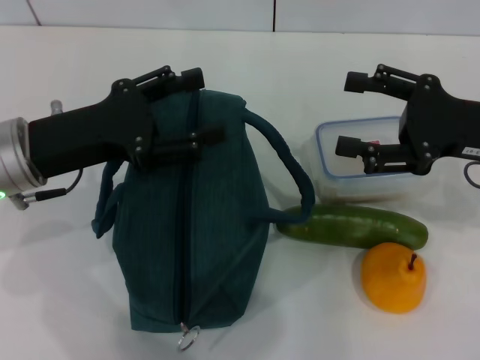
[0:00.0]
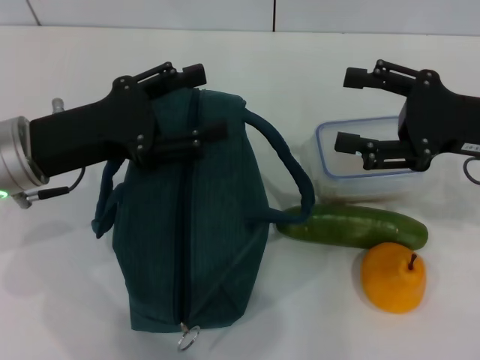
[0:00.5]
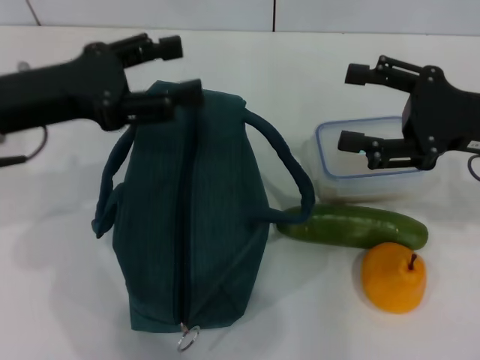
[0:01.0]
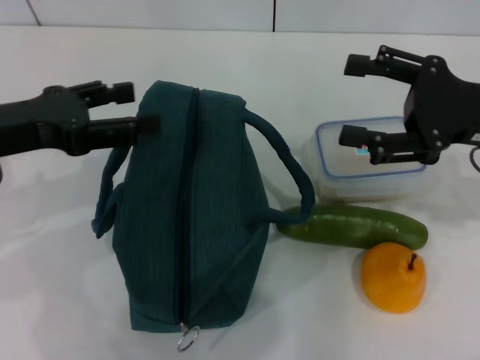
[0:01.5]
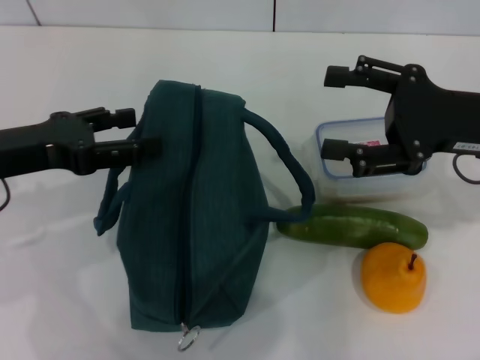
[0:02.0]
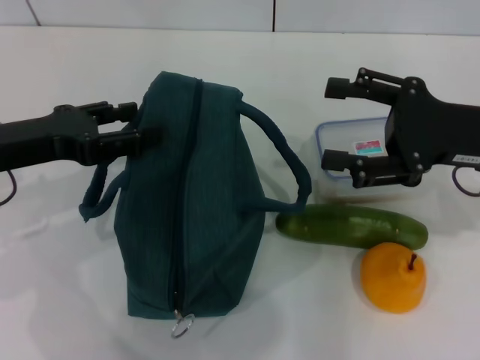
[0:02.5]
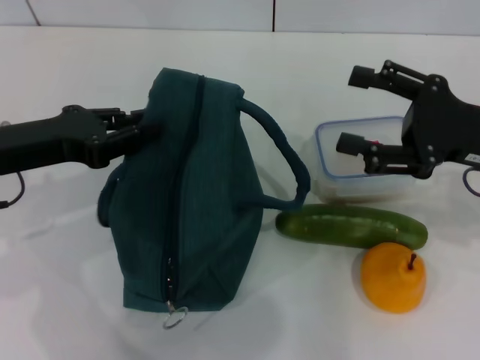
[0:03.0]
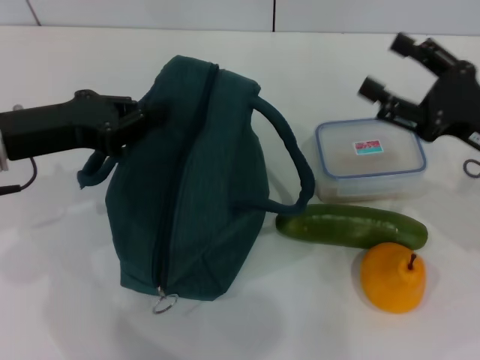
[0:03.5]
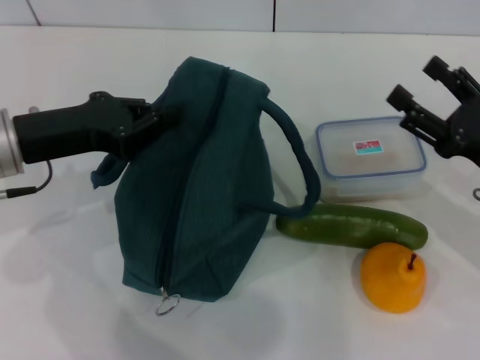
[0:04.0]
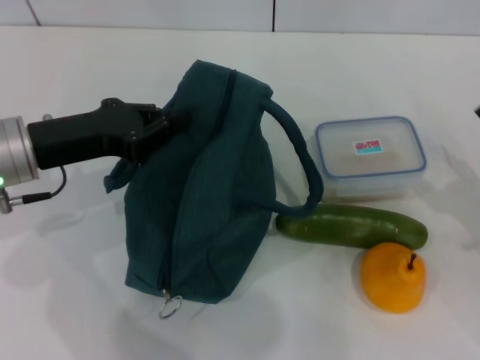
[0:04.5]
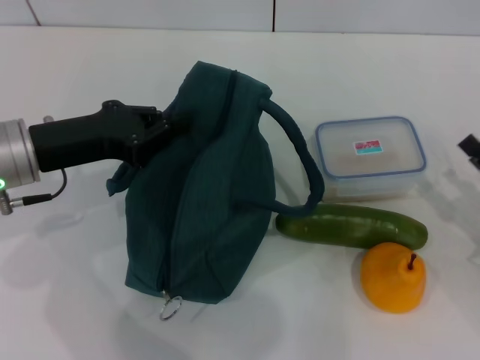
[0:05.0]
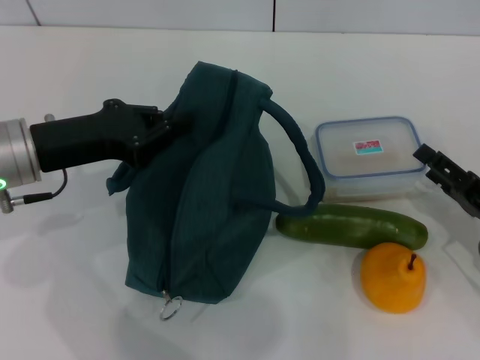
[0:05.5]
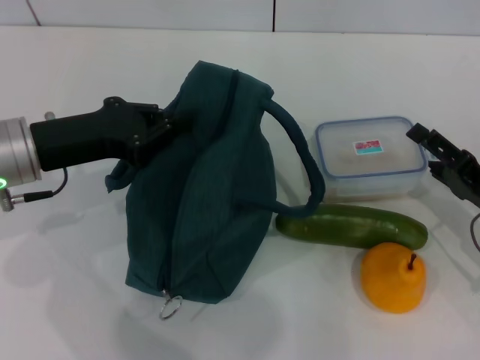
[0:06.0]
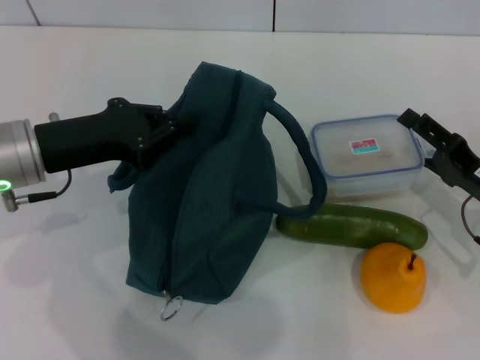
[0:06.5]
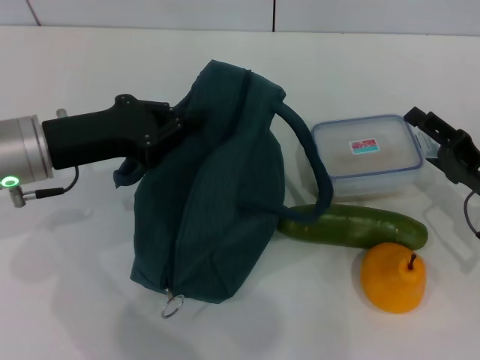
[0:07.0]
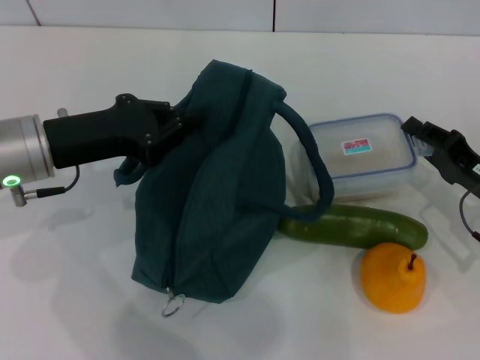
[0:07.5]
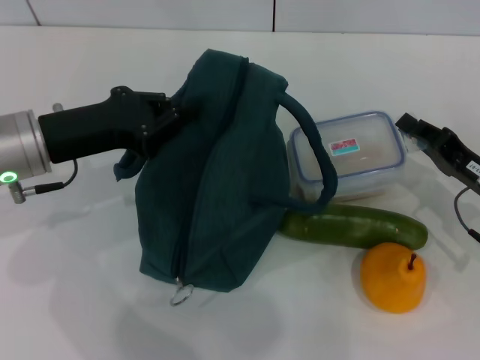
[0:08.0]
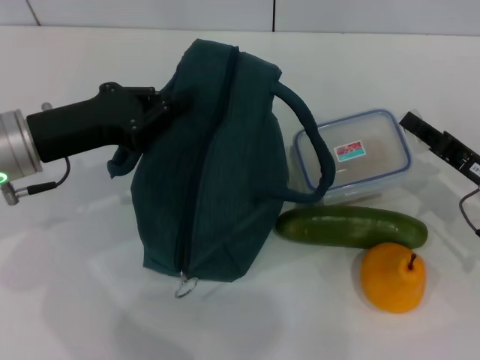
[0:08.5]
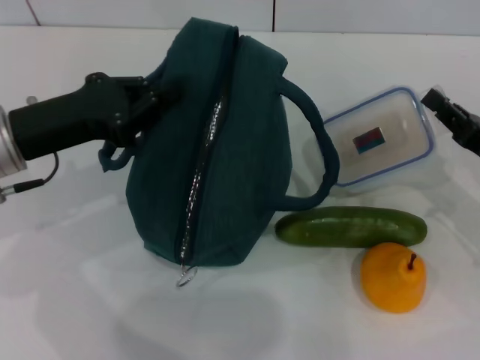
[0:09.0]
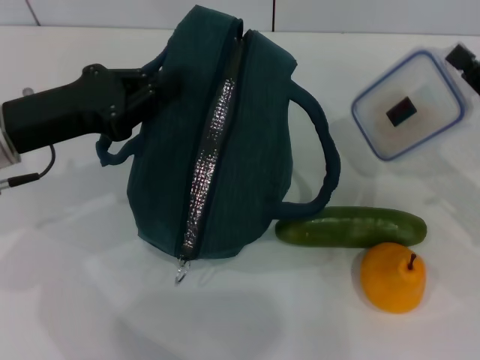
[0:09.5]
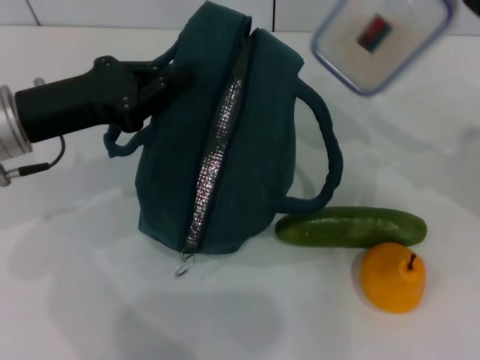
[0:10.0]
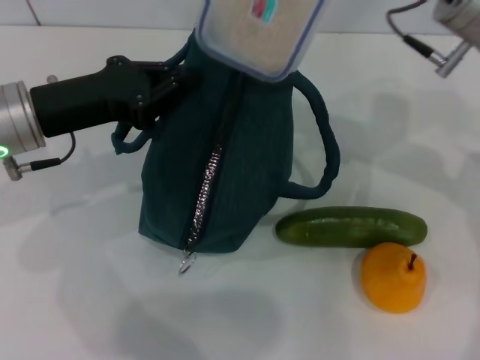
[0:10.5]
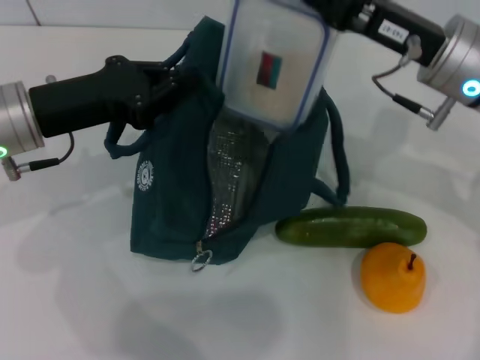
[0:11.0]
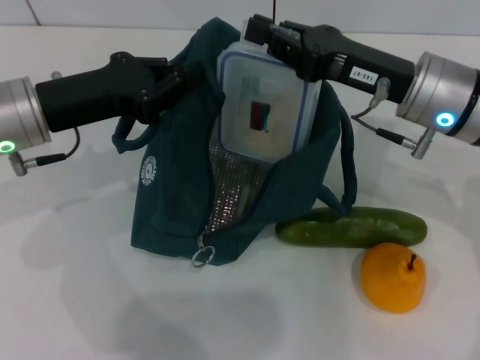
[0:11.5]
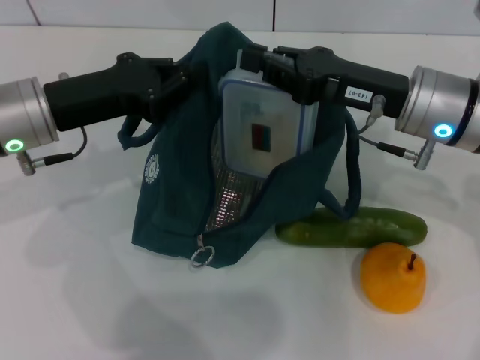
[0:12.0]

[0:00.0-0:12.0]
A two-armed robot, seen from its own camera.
Step, 0:00.0 to 0:03.0: Hold the lunch bag with your left hand.
Step, 0:03.5 to 0:07.5: Pick up the lunch box with your right hand.
0:00.0 to 0:02.0: The left gripper shifts by approximately 5 cm.
0:02.0 to 0:04.0: The left gripper closes. Meanwhile the right gripper is displaced downward and backward by some 10 cm.
0:04.0 to 0:06.0: The right gripper shifts some 5 cm downward.
0:06.0 to 0:08.0: The right gripper closes.
0:08.0 to 0:10.0: The right gripper moves upward, roughly 10 cm.
0:10.0 to 0:12.0: The right gripper heads to the left, covering some 10 cm.

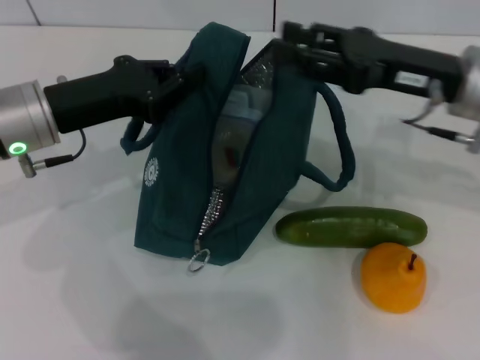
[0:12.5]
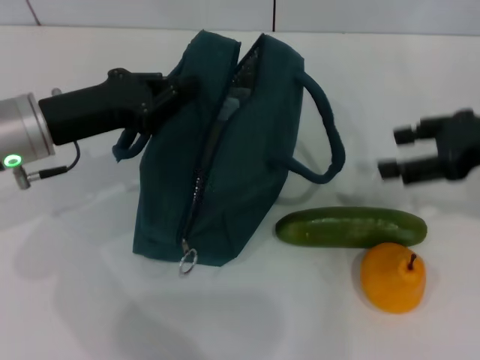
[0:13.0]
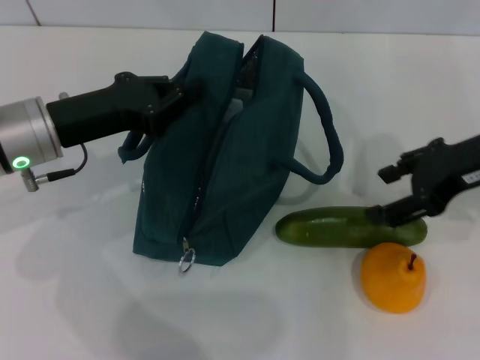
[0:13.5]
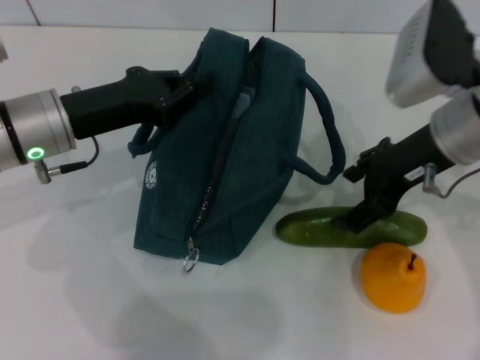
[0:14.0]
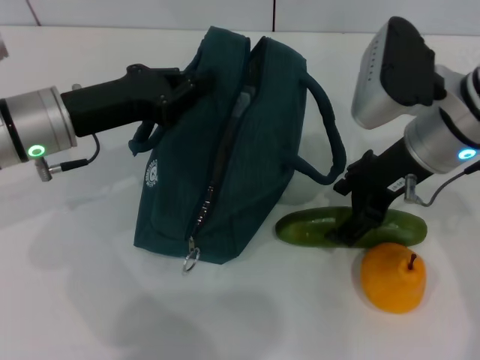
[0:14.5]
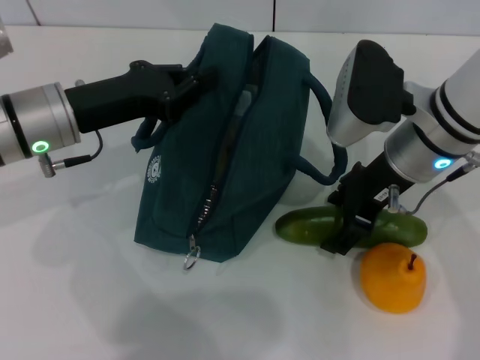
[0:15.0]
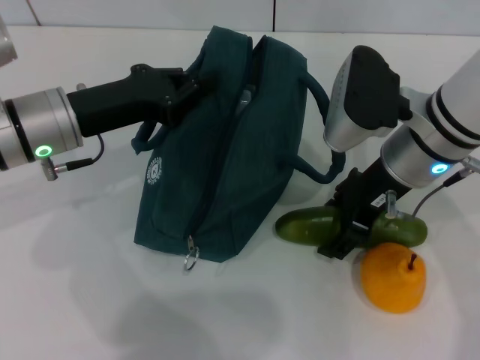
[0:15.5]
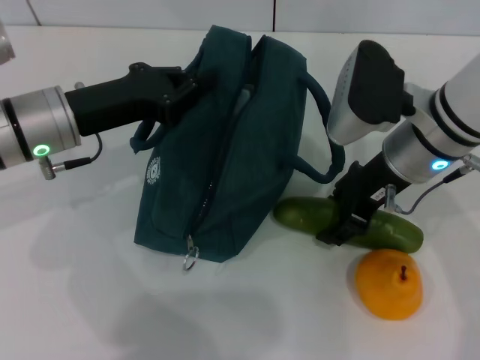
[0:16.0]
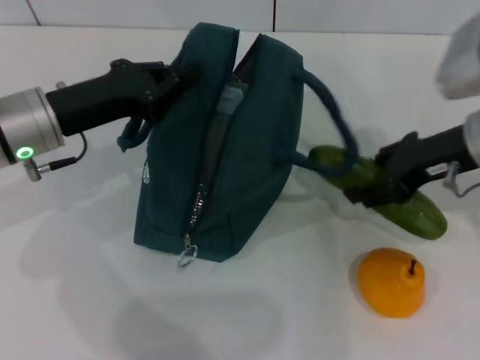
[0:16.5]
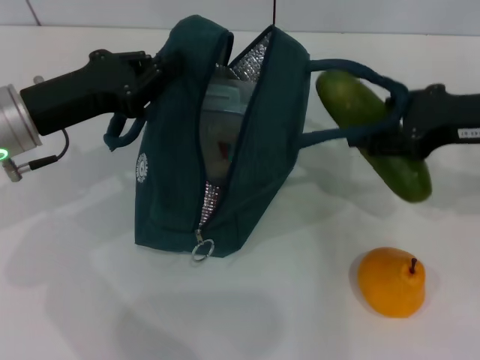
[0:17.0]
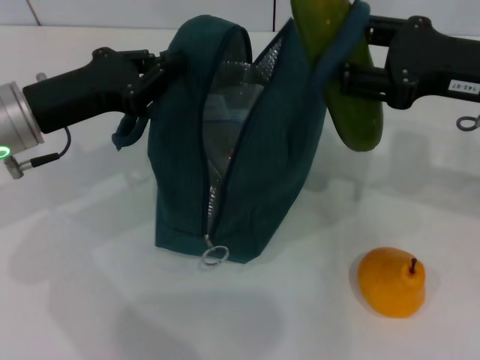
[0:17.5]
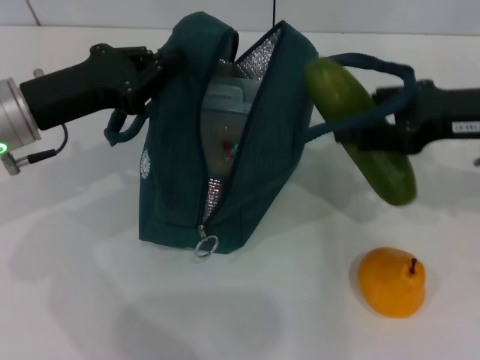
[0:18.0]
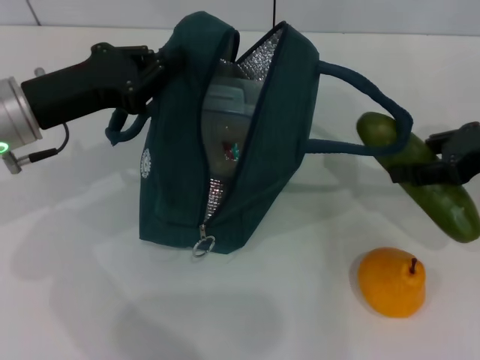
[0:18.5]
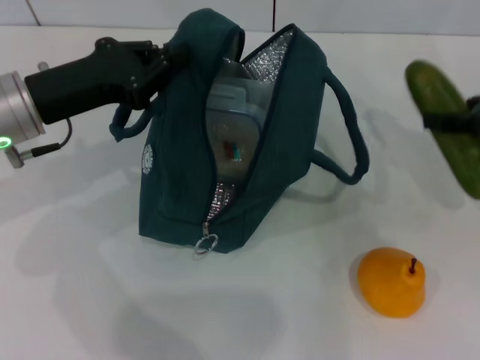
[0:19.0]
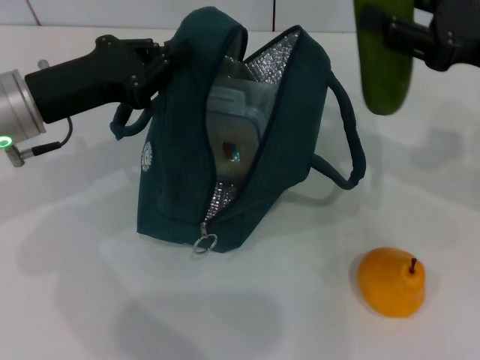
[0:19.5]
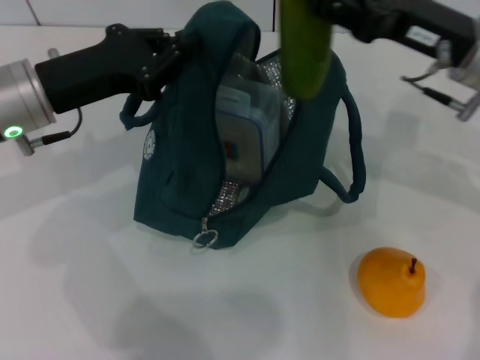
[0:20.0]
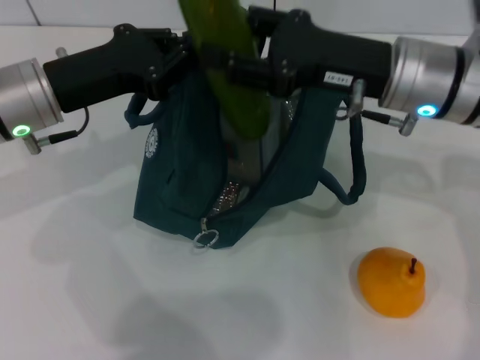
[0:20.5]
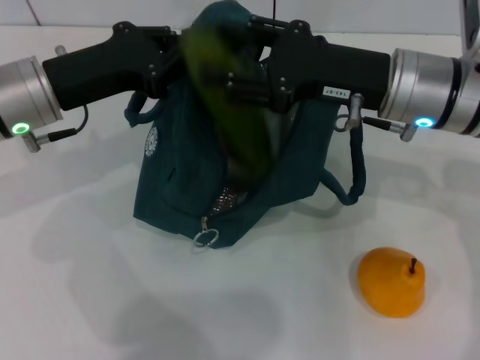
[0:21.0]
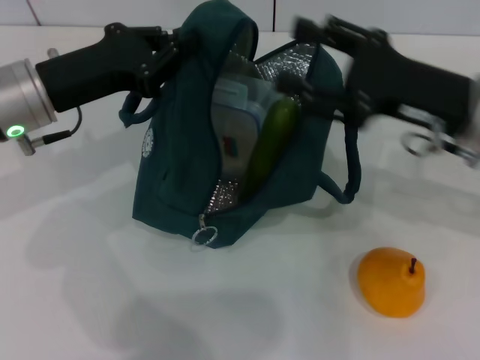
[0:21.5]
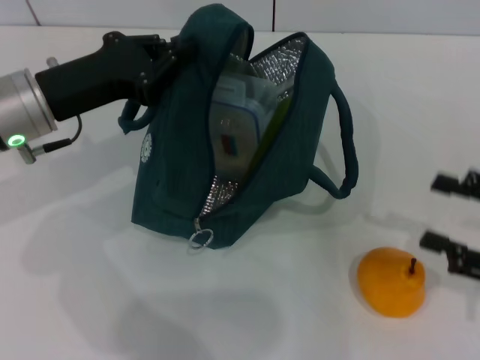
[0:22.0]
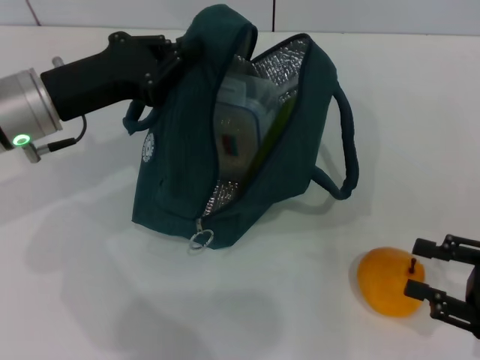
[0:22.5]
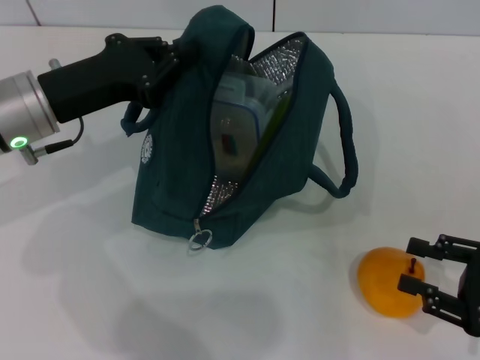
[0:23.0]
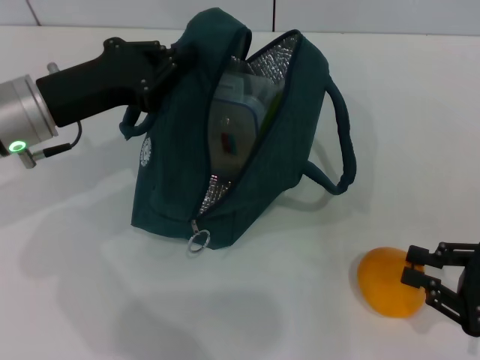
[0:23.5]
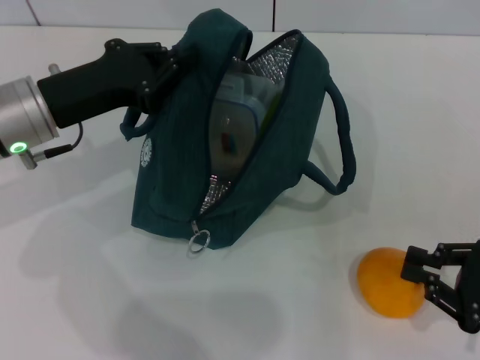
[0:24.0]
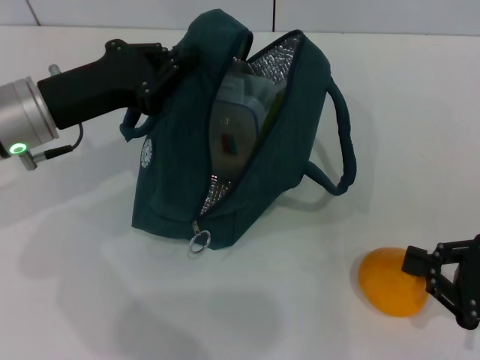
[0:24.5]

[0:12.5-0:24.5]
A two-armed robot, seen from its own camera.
Step, 0:12.5 to 0:15.5: Pick up the cucumber with your right hand.
Step, 0:16.0 to 0:21.0: Put the cucumber into the lunch bag with your right hand.
Step, 0:21.5 to 0:24.0: Grab the pear with your right hand.
0:12.5 to 0:14.5: The right gripper shifts roughly 5 cm to the left, and opens up.
0:14.5 to 0:16.5: The right gripper goes some 5 cm to the right.
0:16.5 to 0:18.5: The right gripper is displaced to the right by about 5 cm.
0:18.5 to 0:20.5: The right gripper moves to the left, about 15 cm.
0:20.5 to 0:22.5: The right gripper moves to the right, backward and downward, roughly 25 cm.
0:22.5 to 0:24.5: The right gripper closes.

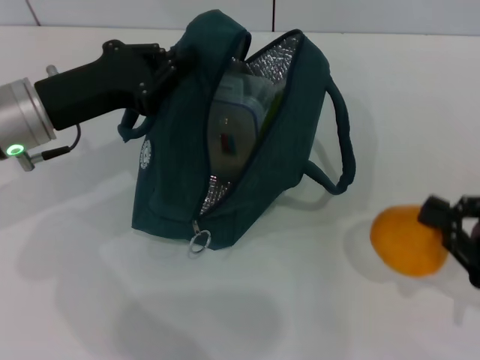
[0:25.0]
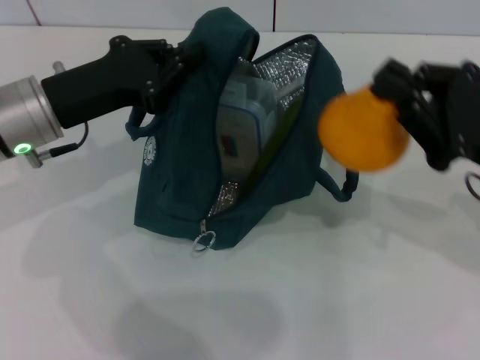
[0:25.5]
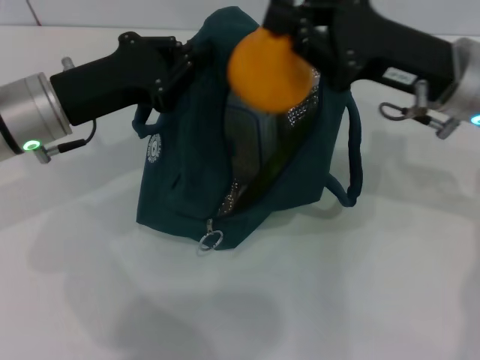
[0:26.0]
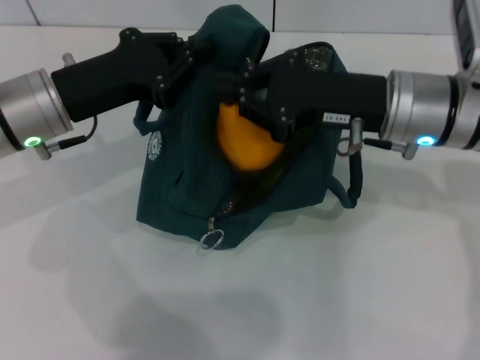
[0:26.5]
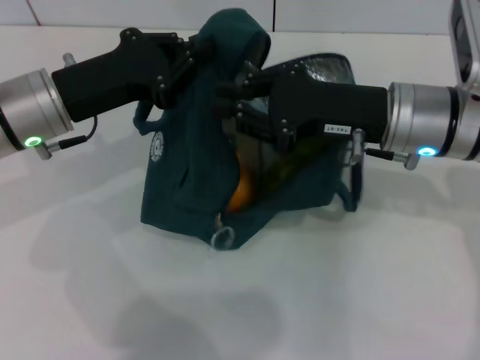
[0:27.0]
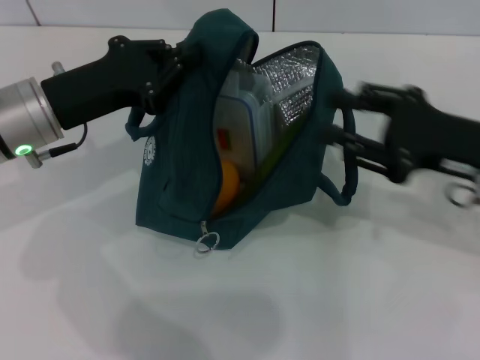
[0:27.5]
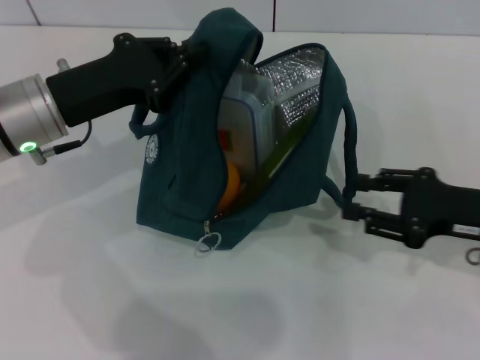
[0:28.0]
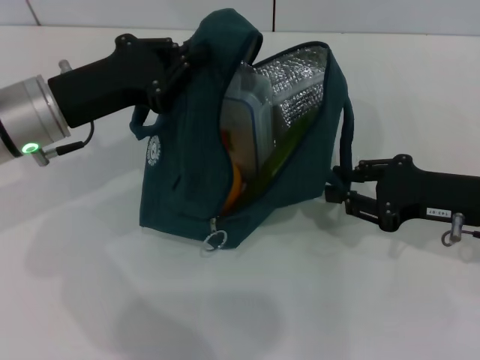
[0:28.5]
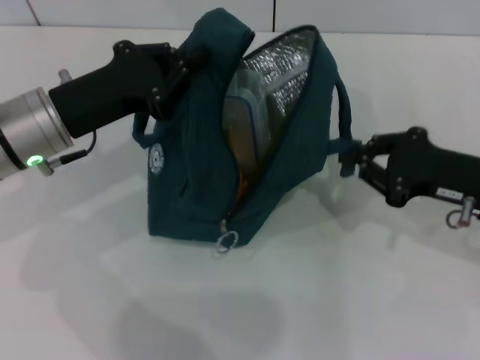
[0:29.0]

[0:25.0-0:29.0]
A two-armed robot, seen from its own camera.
0:25.0 to 0:27.0: The right gripper shifts about 25 cm to the left, forward and upward.
0:27.0 to 0:29.0: The right gripper goes some 10 cm to the right and downward, and opens, then closes once more.
